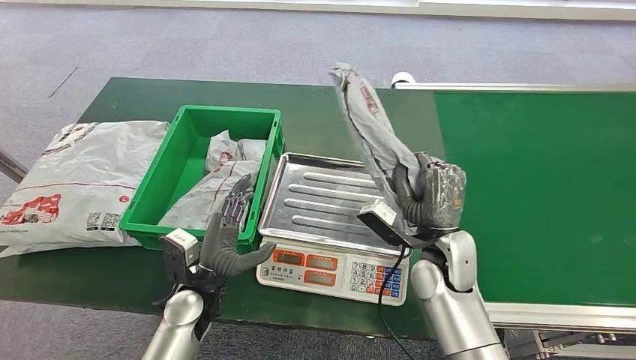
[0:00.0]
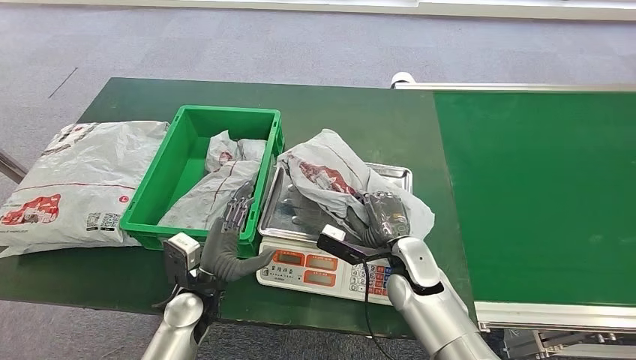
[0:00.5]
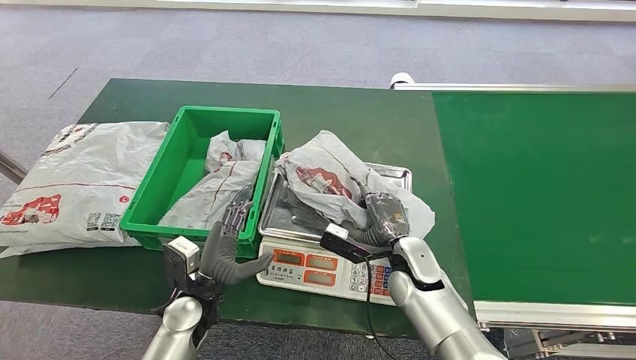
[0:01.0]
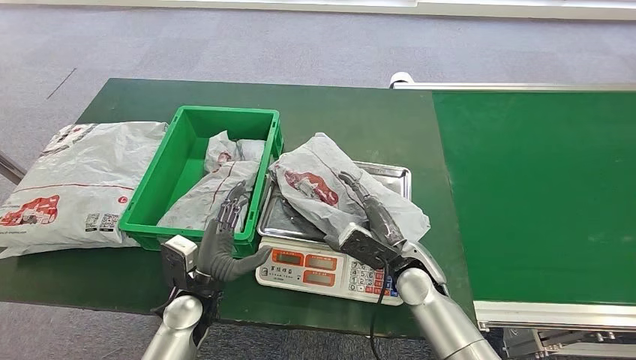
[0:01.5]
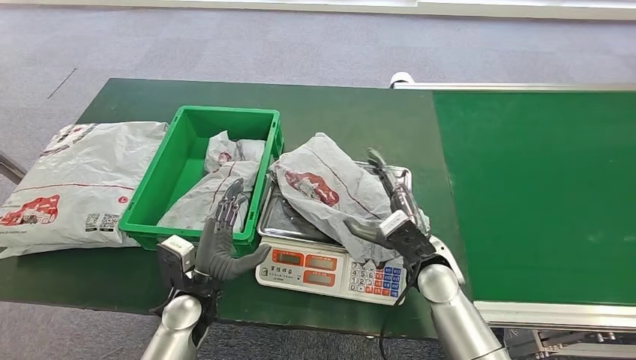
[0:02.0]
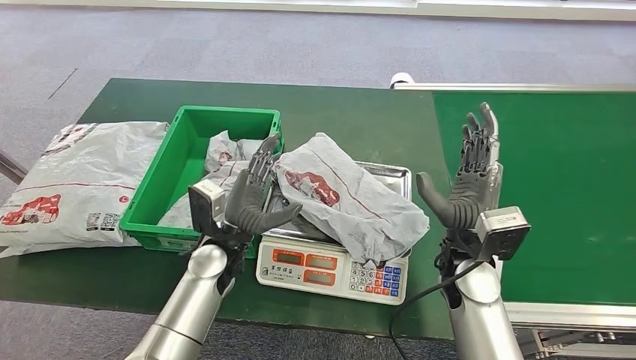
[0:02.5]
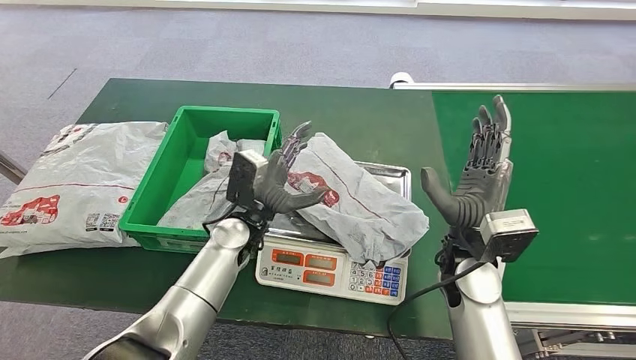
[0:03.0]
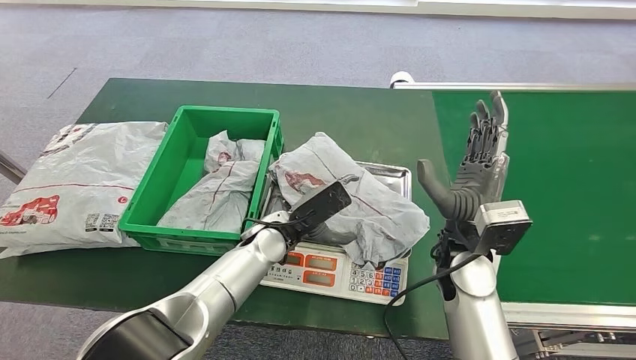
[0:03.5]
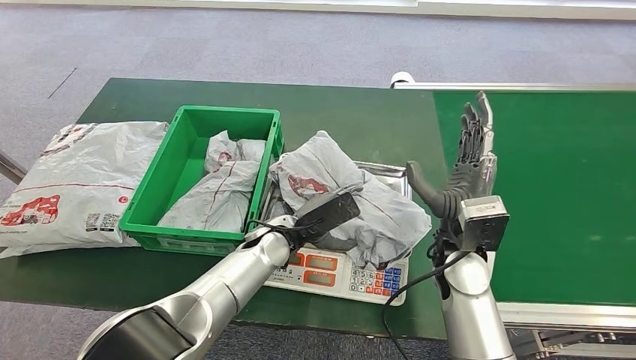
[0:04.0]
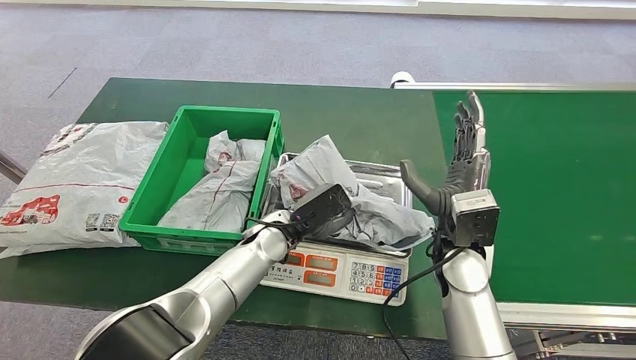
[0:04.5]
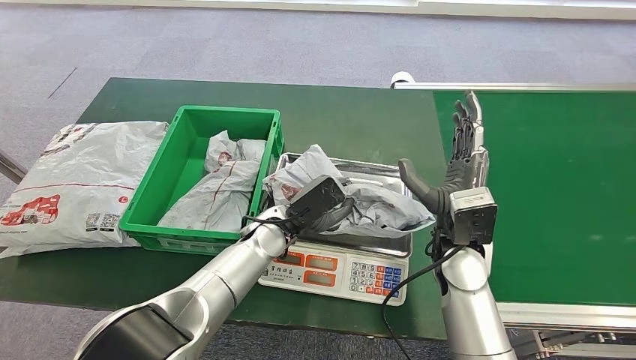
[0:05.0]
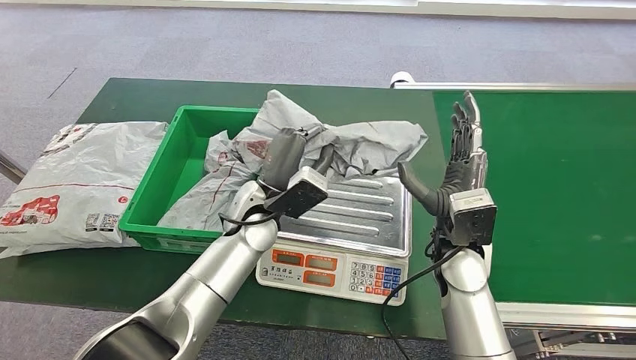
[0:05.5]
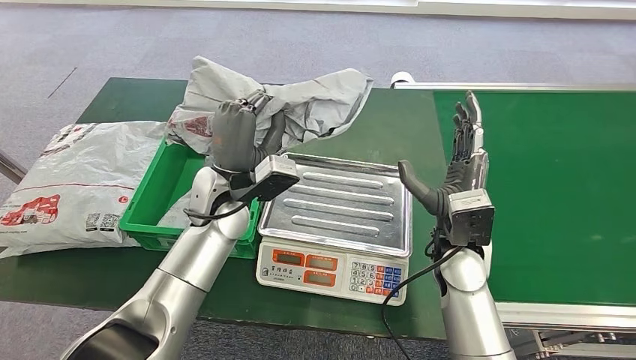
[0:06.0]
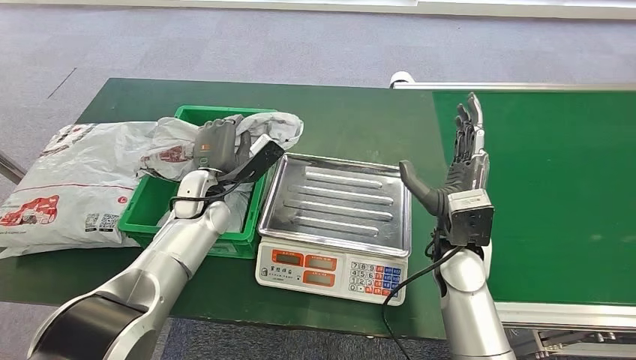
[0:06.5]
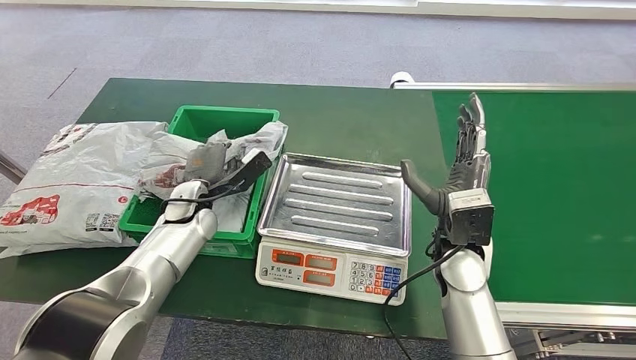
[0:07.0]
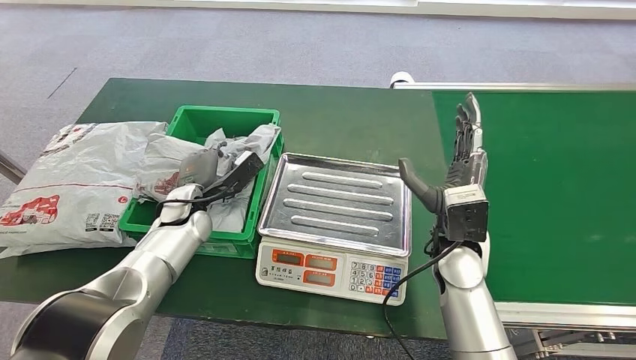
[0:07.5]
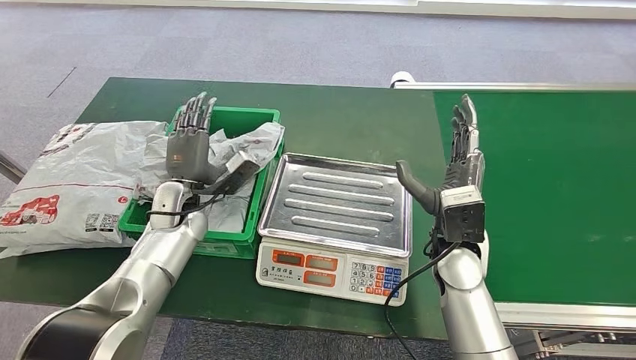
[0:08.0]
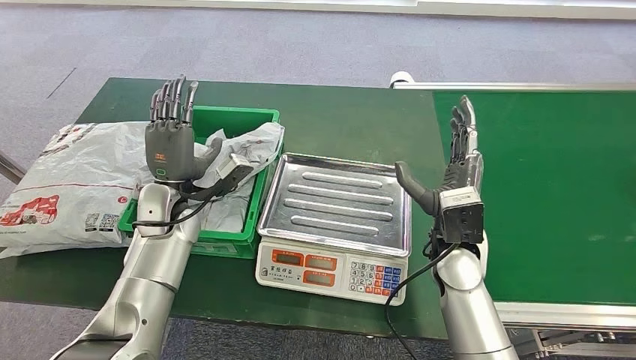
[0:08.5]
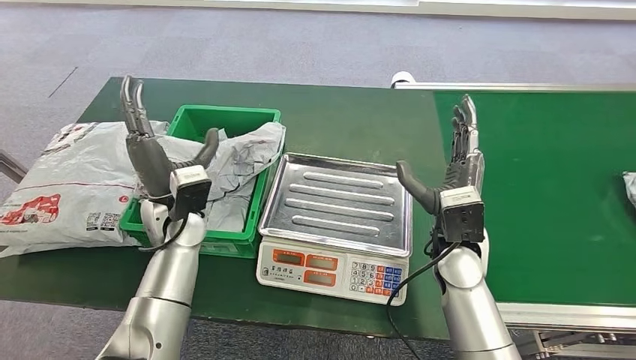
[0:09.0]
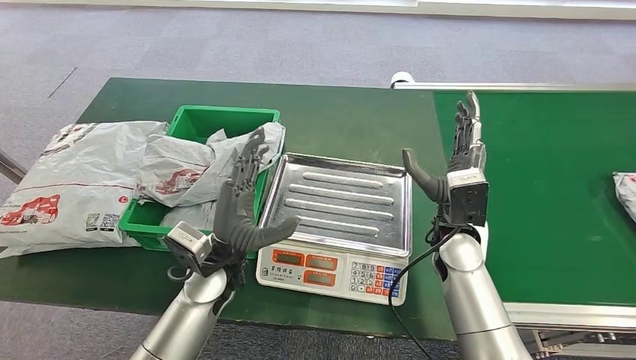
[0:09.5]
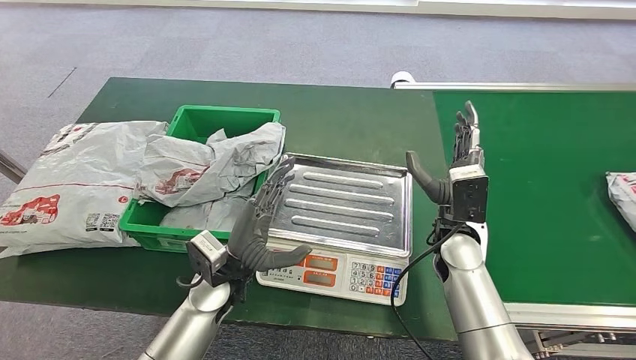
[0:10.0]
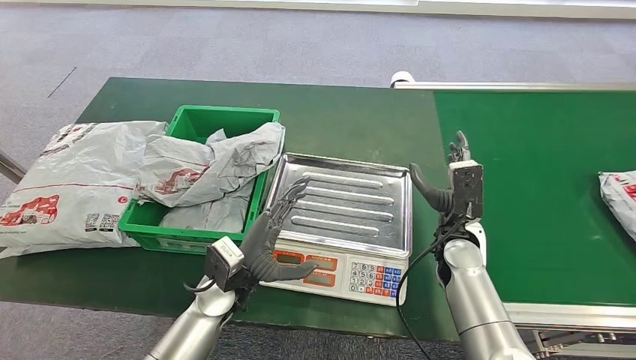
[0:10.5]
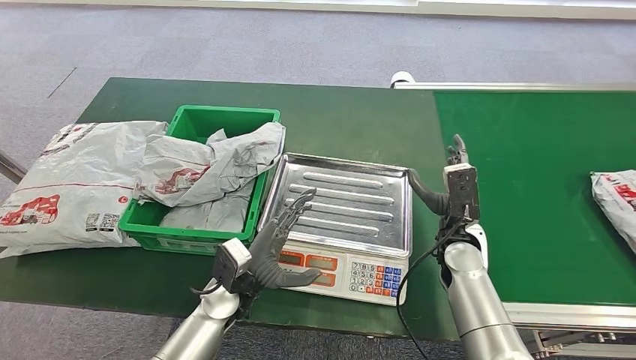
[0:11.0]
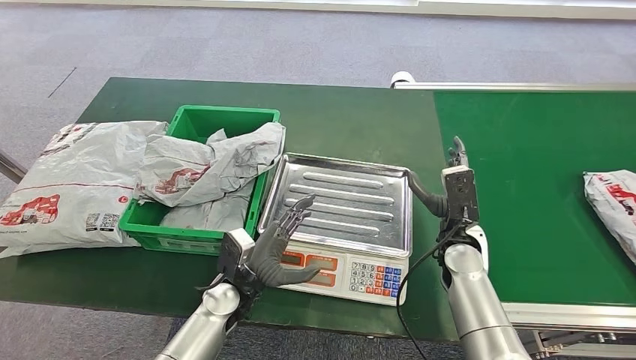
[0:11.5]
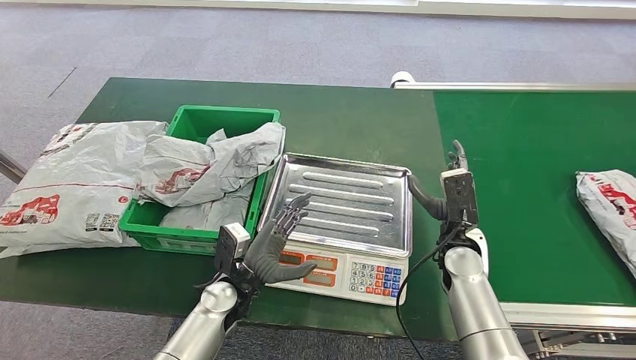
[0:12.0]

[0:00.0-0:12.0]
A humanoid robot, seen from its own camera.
Step, 0:00.0 to 0:01.0: Place the parcel onto the inbound machine.
Step, 0:04.5 to 0:06.0: Pick up the parcel from the inbound machine.
Step, 0:06.5 to 0:08.5: Place the parcel into the delivery box.
0:02.0 to 0:04.0: The right hand travels upward by about 5 cm; the left hand moves to the right, forward and upward, about 15 cm.
0:06.0 to 0:08.0: The left hand goes some 15 cm to the left and downward.
0:08.0 to 0:10.0: The left hand moves backward and to the right, roughly 15 cm.
0:10.0 to 0:12.0: Both hands move downward, roughly 5 cm.

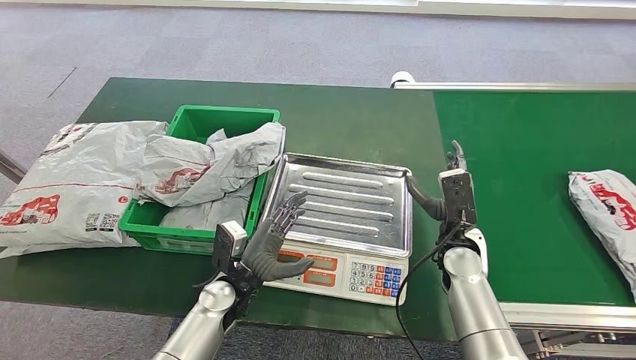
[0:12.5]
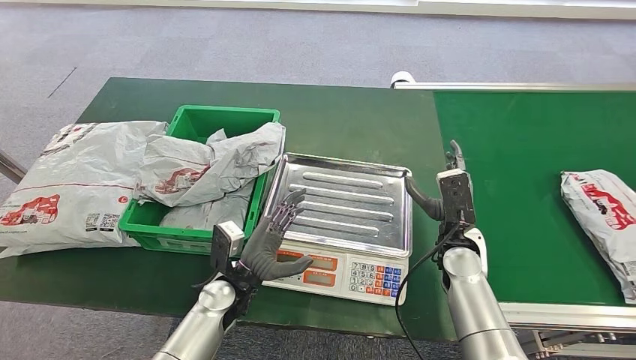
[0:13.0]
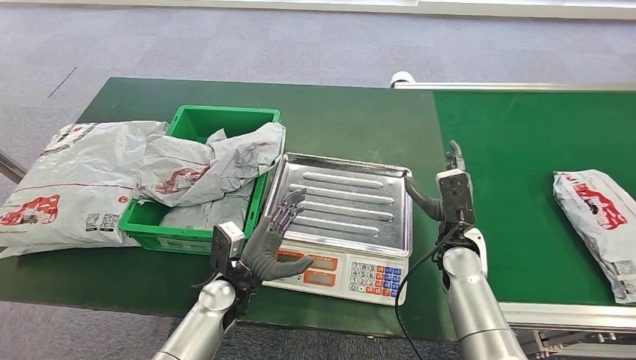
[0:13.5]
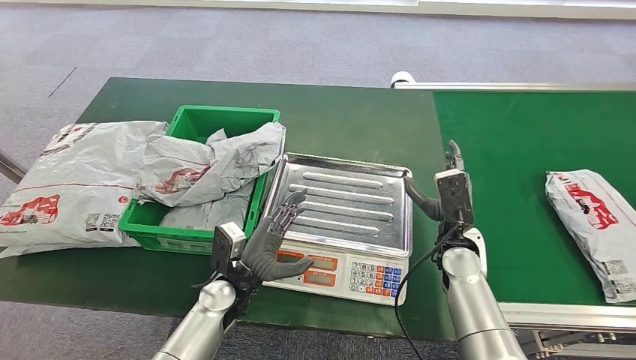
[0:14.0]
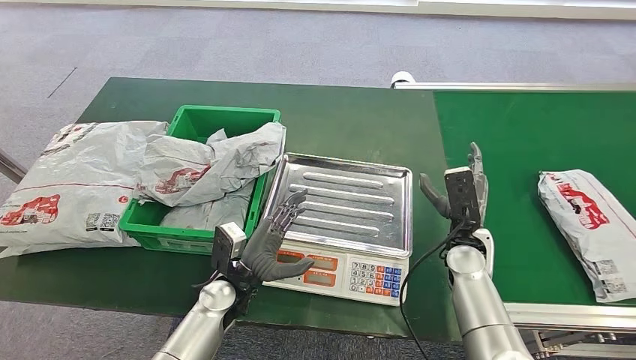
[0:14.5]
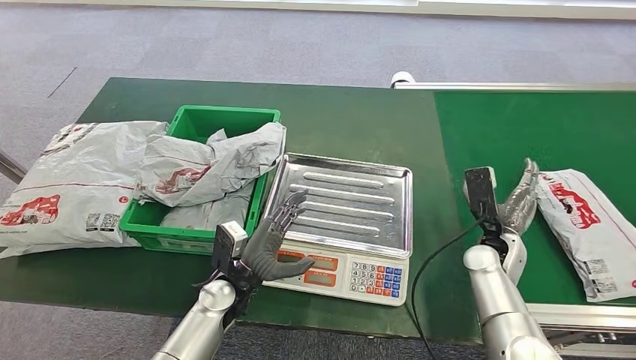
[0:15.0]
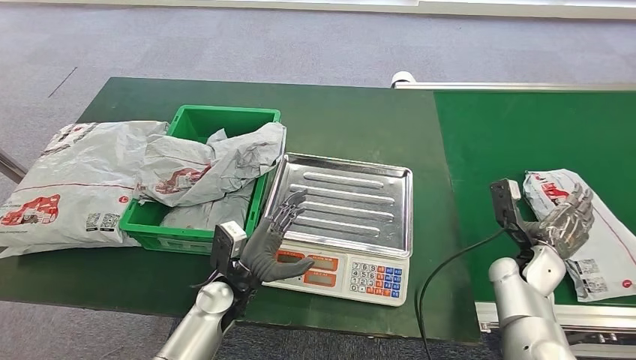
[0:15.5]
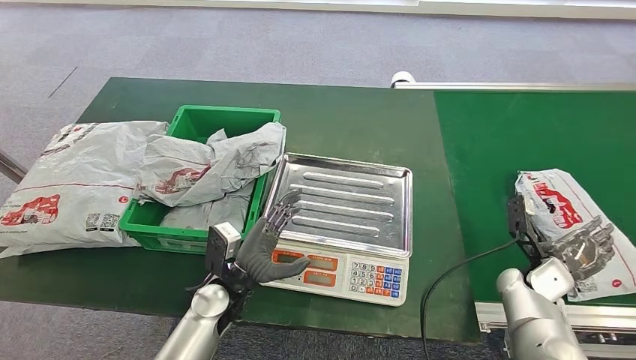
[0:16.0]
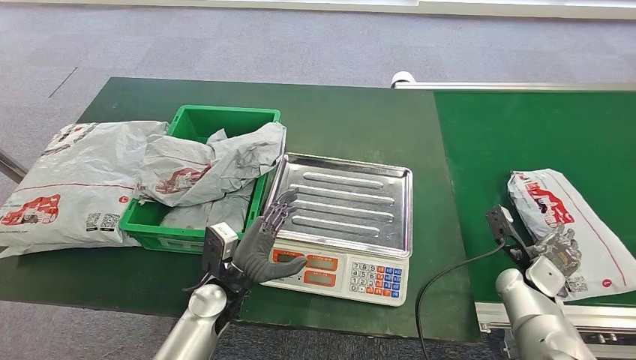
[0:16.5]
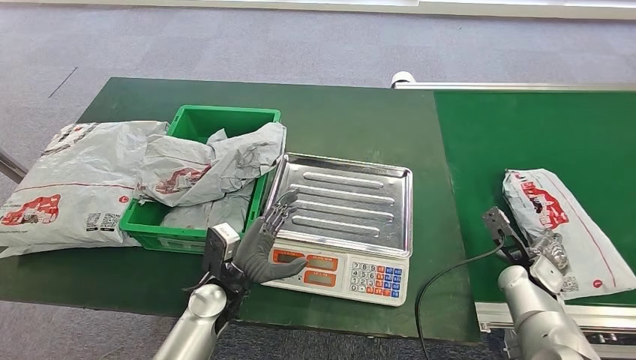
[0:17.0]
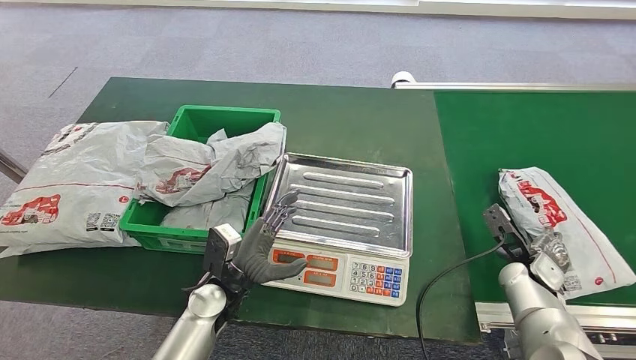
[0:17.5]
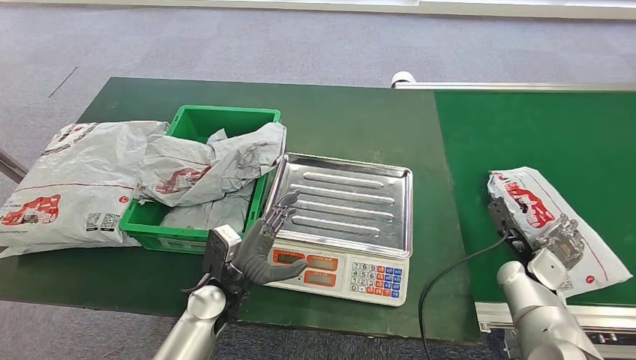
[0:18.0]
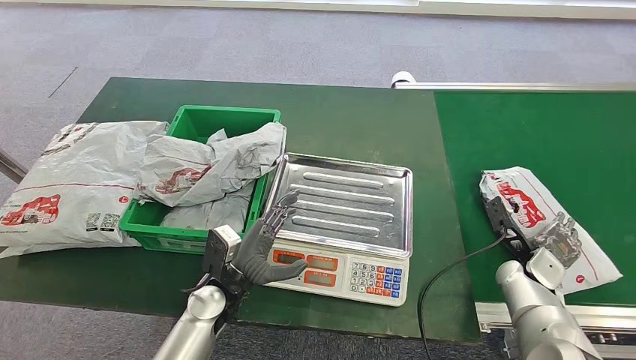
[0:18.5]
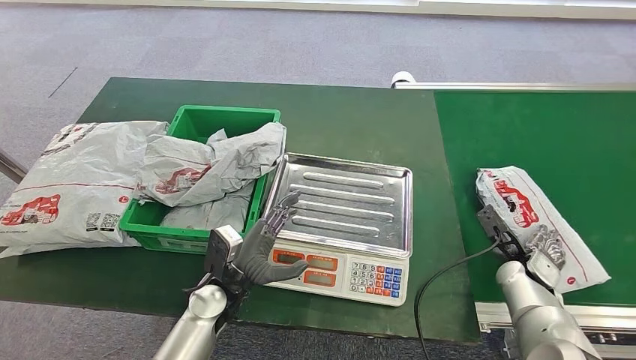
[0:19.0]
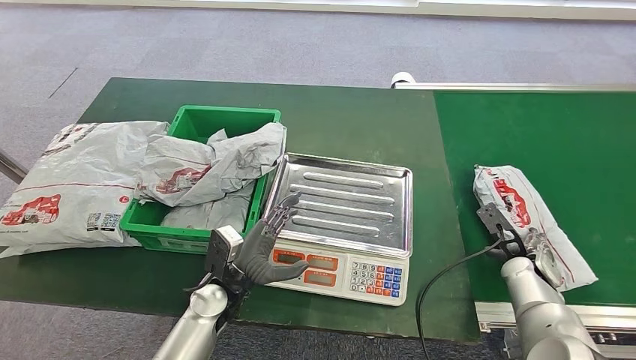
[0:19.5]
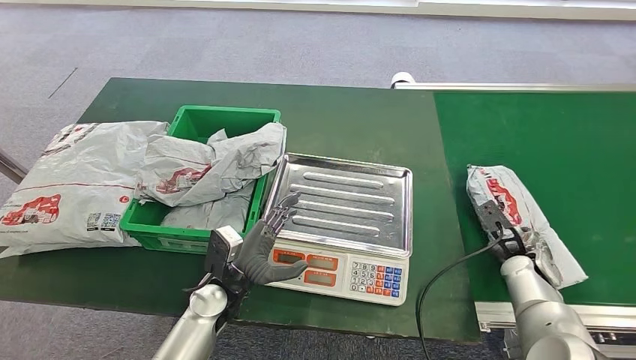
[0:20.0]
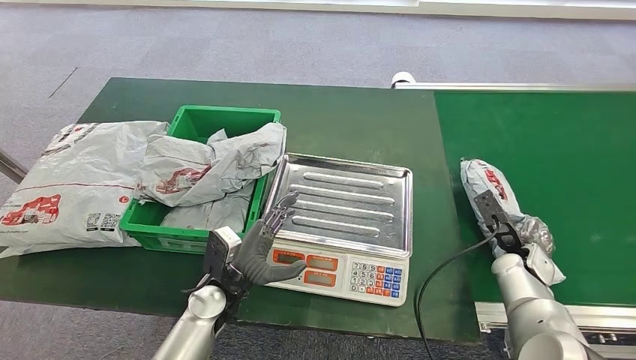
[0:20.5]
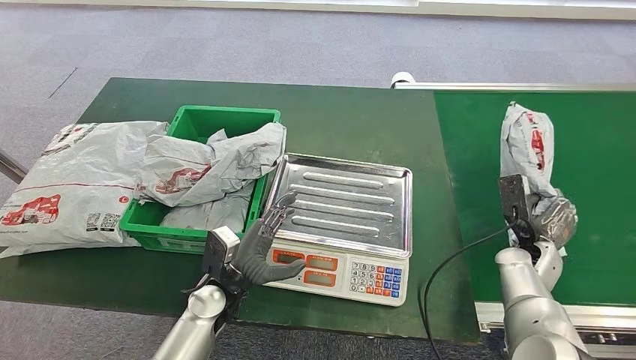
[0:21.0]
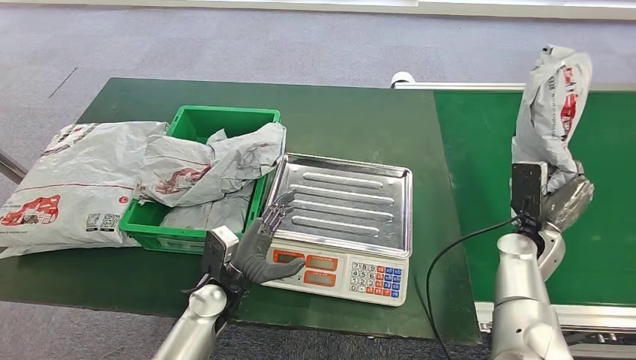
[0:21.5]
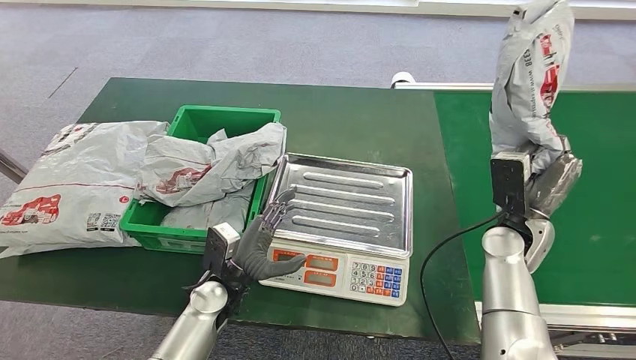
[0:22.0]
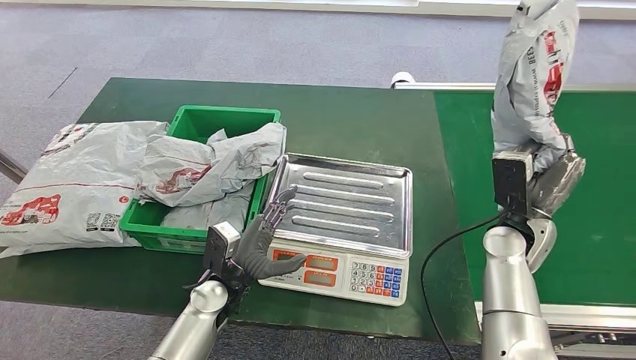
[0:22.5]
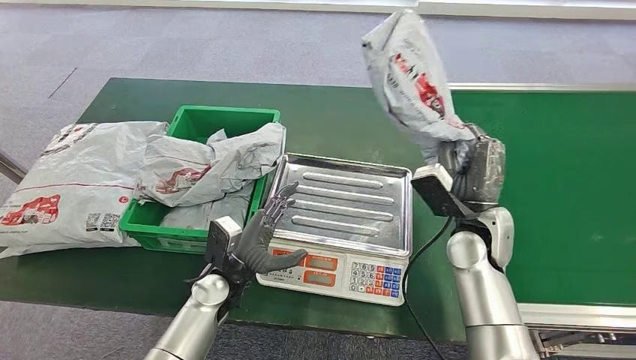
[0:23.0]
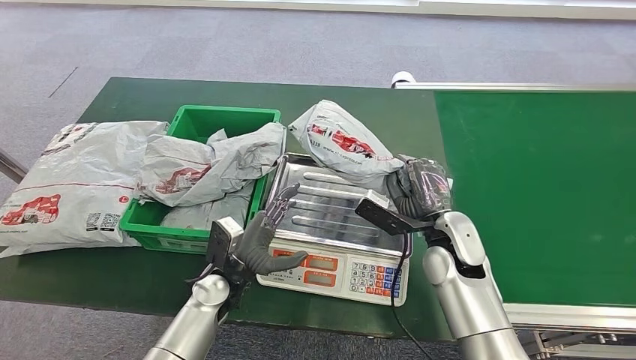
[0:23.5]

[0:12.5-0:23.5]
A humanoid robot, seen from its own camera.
Step, 0:20.0 to 0:21.0: Pick up the parcel from the conveyor belt.
0:12.5 to 0:14.5: The hands stay close to where they were, moving slightly.
0:14.5 to 0:16.0: The right hand shifts about 15 cm to the right.
0:20.0 to 0:21.5: The right hand moves upward, about 5 cm.
